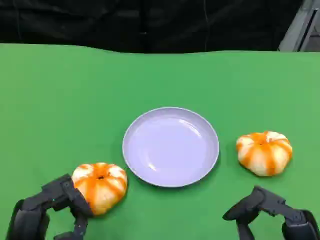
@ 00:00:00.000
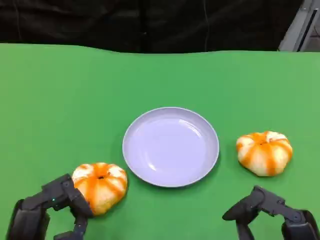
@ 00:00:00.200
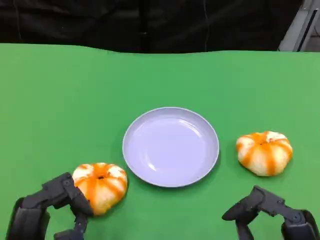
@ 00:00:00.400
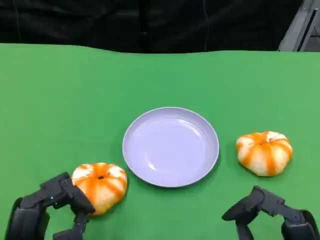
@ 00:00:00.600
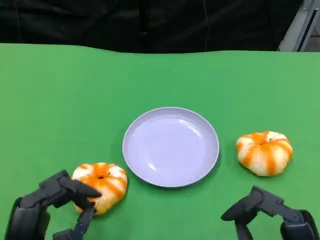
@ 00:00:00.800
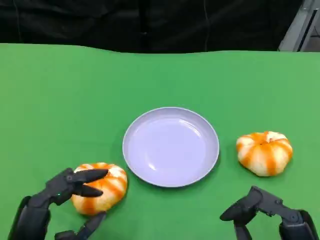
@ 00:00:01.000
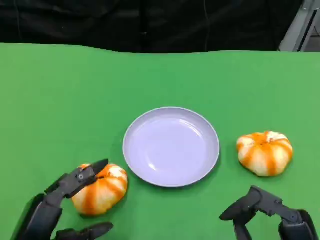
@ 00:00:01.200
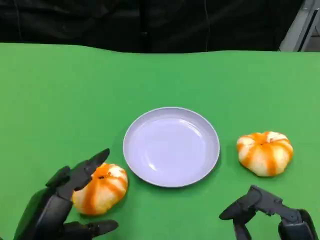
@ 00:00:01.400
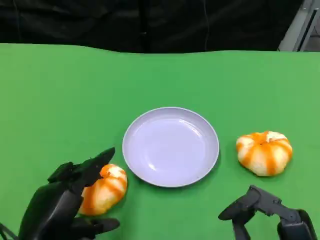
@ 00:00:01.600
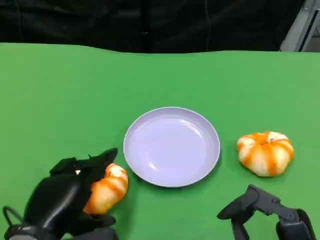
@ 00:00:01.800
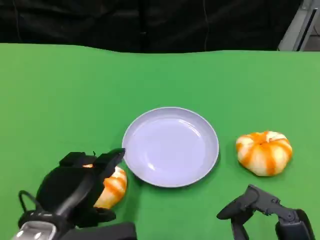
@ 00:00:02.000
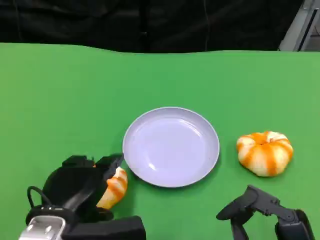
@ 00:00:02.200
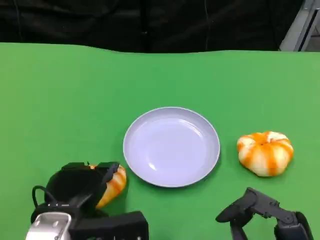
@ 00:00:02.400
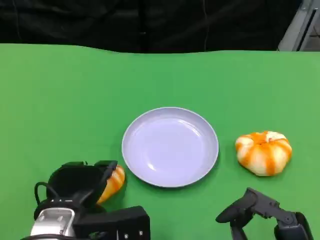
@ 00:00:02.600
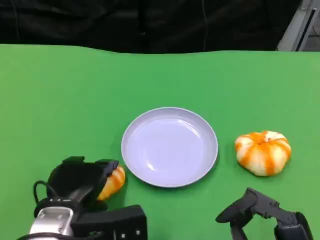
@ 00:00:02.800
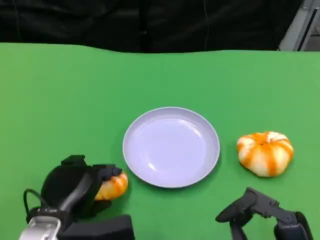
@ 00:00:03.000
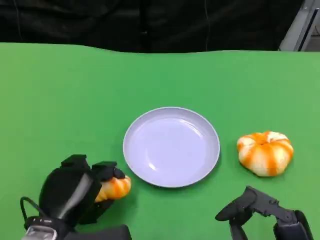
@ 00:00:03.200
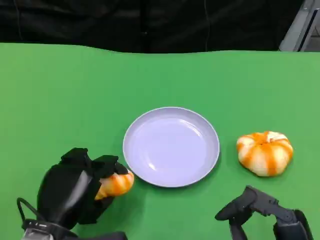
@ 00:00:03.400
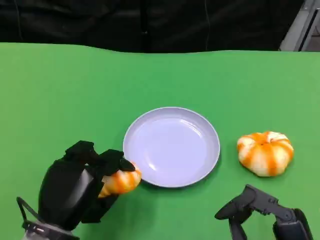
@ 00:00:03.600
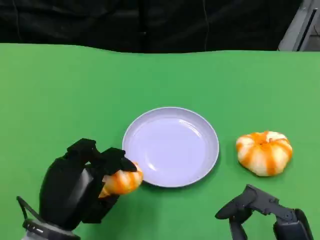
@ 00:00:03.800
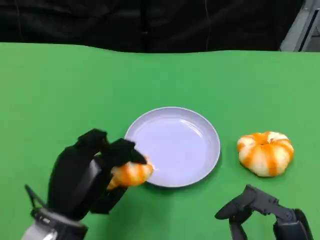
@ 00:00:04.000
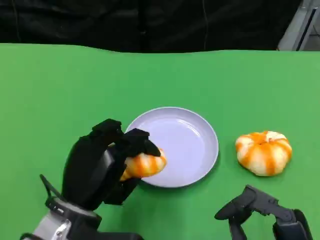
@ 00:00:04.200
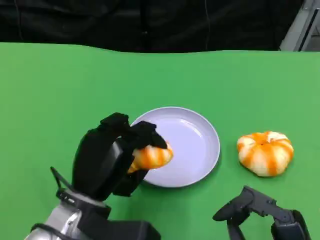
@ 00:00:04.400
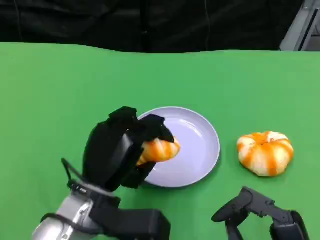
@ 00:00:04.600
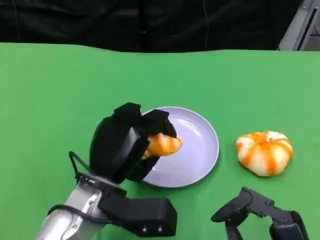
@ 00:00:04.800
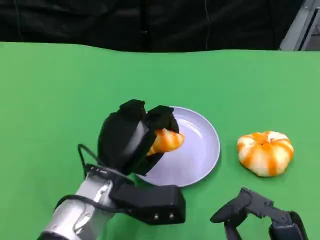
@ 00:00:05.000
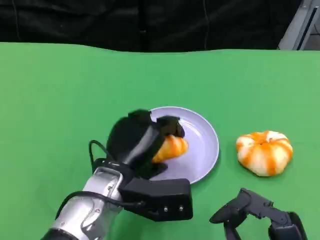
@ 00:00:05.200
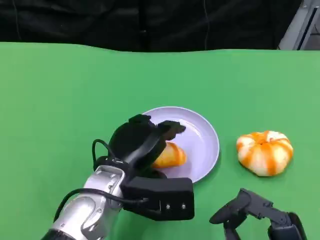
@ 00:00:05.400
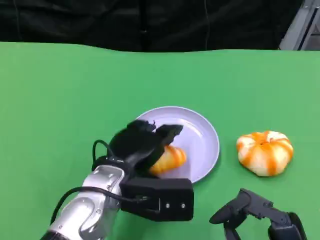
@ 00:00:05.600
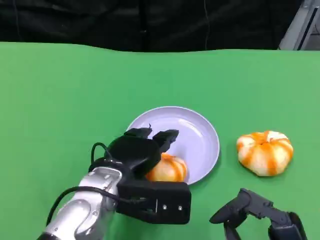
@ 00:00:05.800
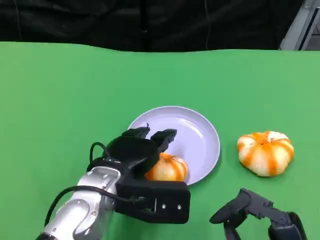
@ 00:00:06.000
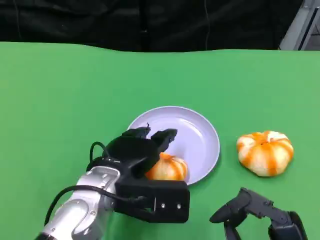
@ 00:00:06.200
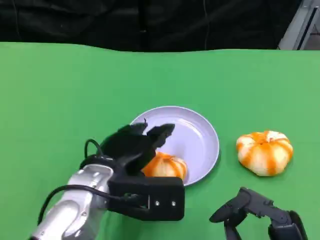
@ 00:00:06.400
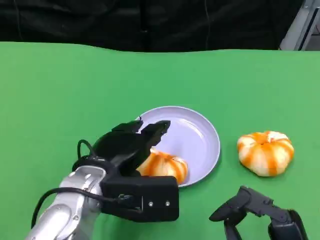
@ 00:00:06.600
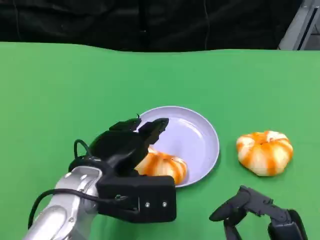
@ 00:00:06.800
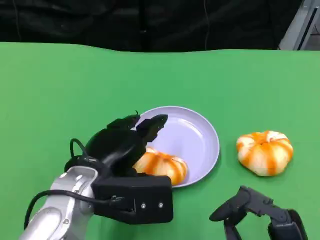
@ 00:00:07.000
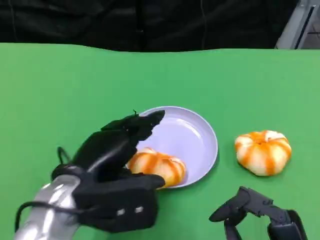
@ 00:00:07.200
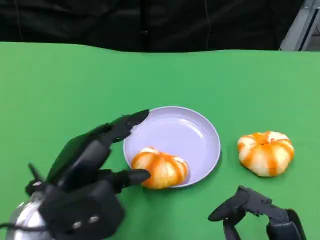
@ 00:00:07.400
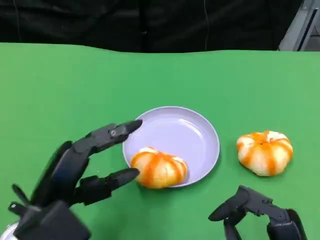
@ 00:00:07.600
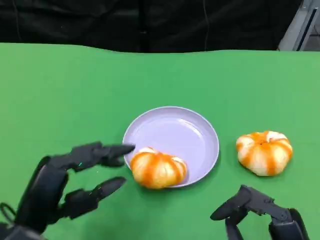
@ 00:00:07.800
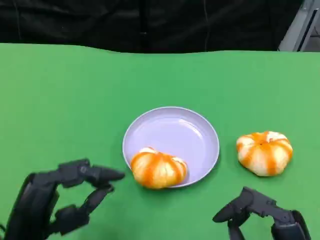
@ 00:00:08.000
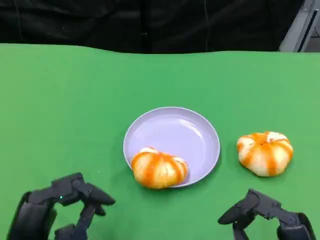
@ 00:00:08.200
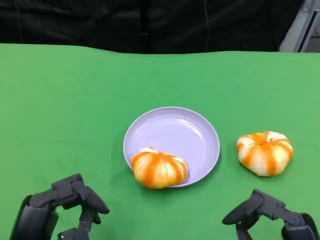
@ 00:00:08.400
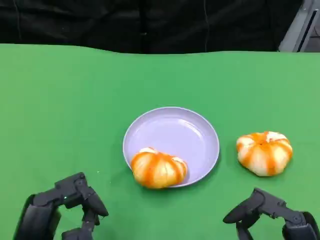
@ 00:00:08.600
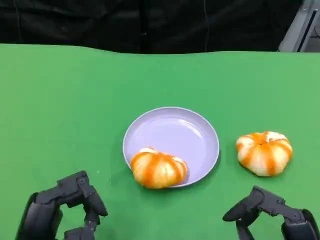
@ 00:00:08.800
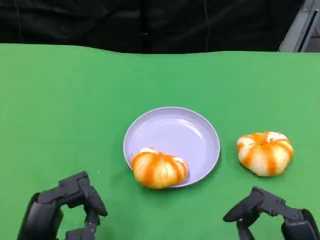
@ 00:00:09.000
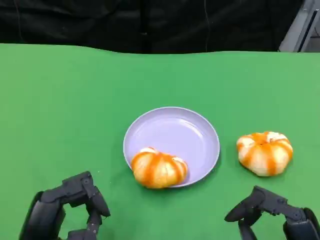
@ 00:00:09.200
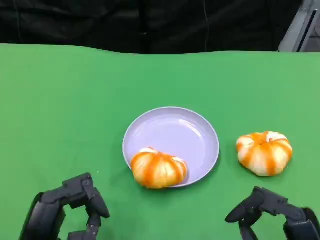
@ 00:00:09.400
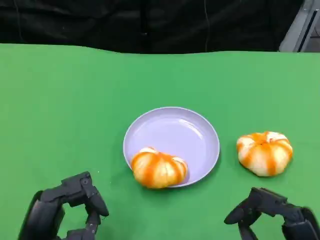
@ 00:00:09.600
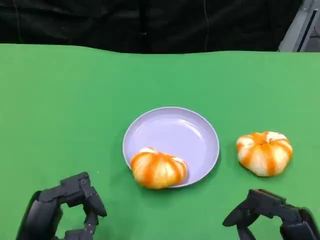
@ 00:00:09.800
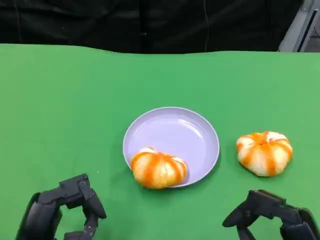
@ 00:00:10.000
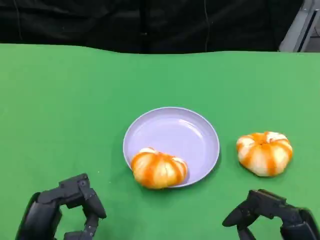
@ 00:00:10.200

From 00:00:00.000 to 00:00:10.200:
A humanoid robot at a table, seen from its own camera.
Task of the whole recording: Grasp the bread from the table and place it into the plate.
From 00:00:01.400 to 00:00:03.000: The left hand heads forward, covering approximately 5 cm.
From 00:00:03.000 to 00:00:04.400: The left hand shifts by about 5 cm.
From 00:00:05.800 to 00:00:07.200: The left hand goes about 5 cm to the left.
From 00:00:07.200 to 00:00:08.800: The left hand shifts approximately 10 cm backward, downward and to the left.
From 00:00:08.800 to 00:00:10.200: There are only small adjustments of the hands.

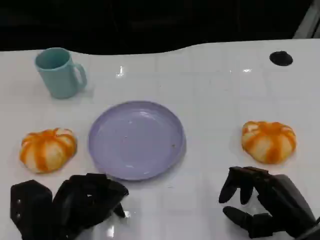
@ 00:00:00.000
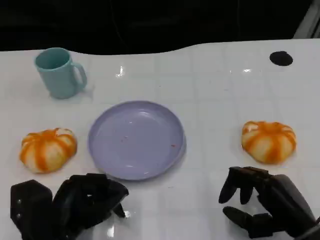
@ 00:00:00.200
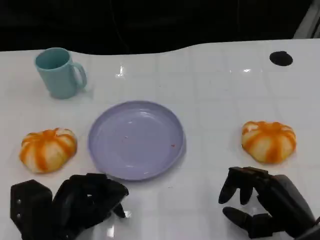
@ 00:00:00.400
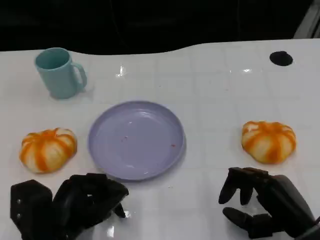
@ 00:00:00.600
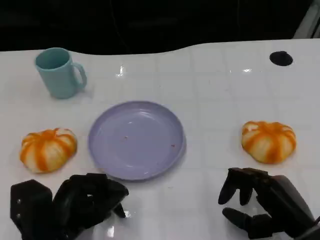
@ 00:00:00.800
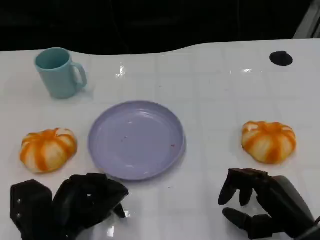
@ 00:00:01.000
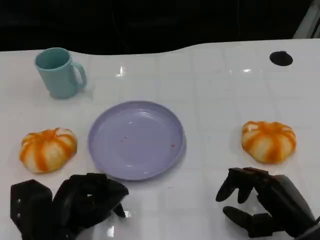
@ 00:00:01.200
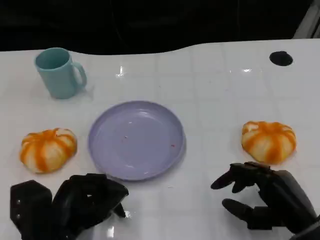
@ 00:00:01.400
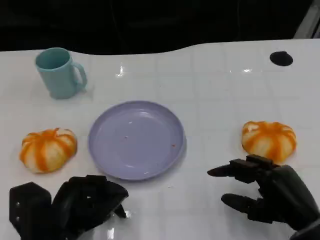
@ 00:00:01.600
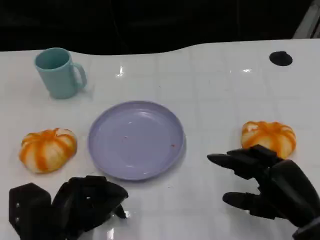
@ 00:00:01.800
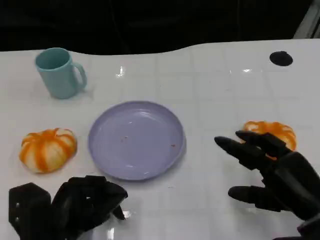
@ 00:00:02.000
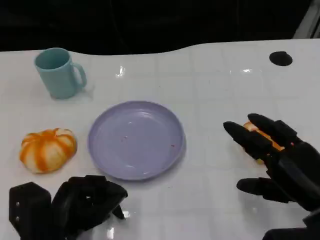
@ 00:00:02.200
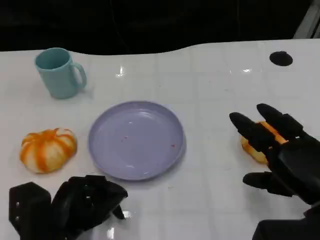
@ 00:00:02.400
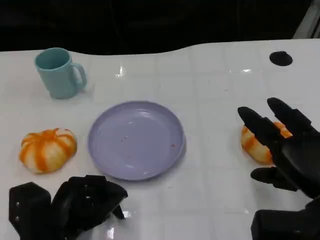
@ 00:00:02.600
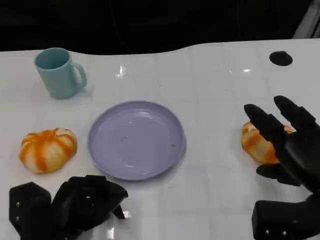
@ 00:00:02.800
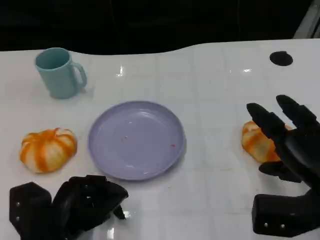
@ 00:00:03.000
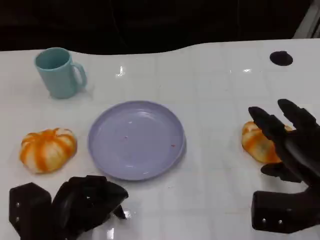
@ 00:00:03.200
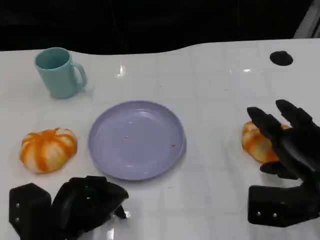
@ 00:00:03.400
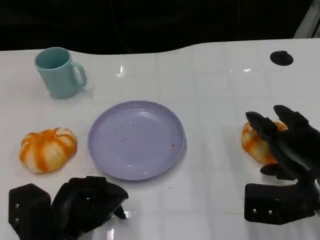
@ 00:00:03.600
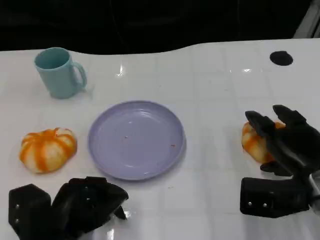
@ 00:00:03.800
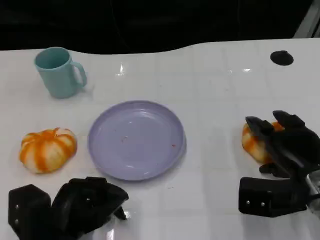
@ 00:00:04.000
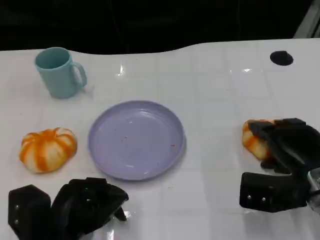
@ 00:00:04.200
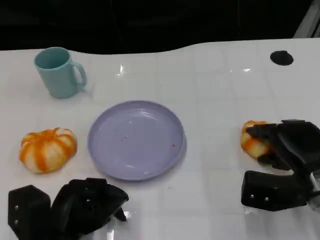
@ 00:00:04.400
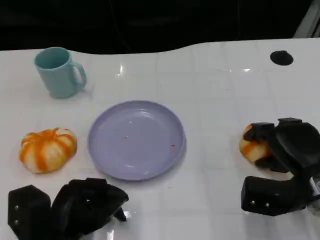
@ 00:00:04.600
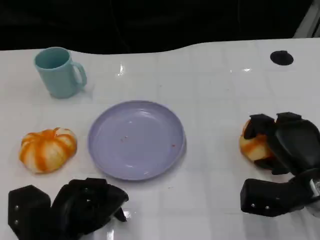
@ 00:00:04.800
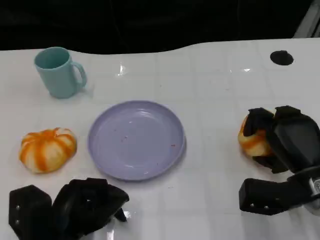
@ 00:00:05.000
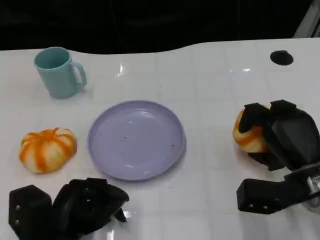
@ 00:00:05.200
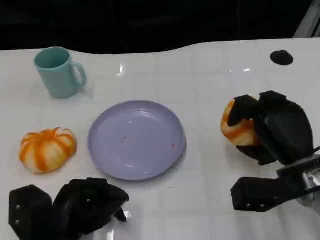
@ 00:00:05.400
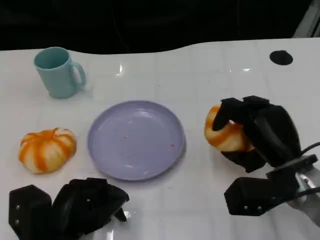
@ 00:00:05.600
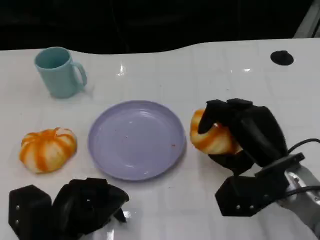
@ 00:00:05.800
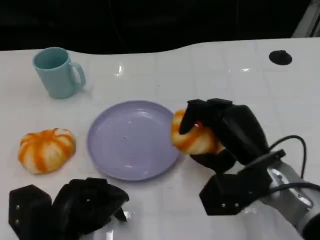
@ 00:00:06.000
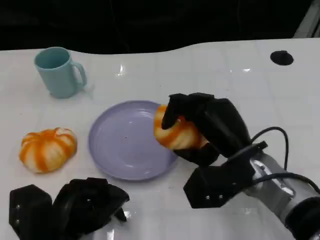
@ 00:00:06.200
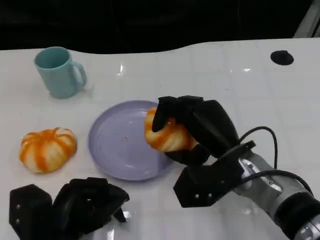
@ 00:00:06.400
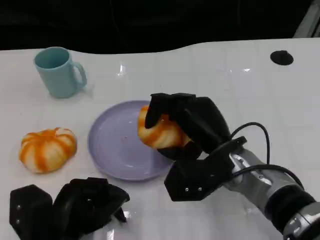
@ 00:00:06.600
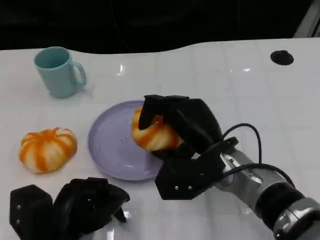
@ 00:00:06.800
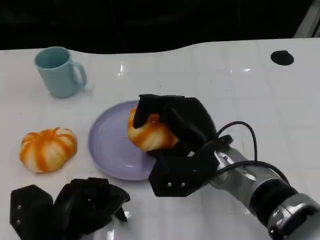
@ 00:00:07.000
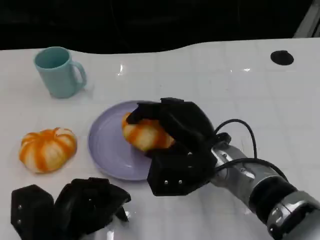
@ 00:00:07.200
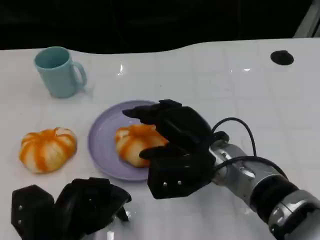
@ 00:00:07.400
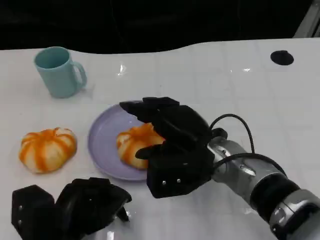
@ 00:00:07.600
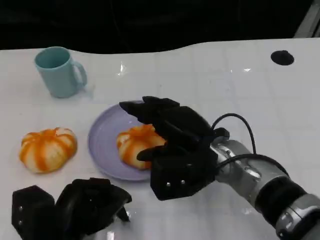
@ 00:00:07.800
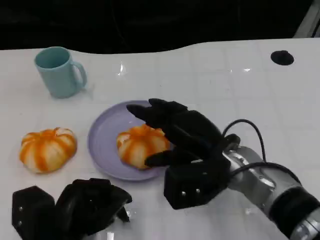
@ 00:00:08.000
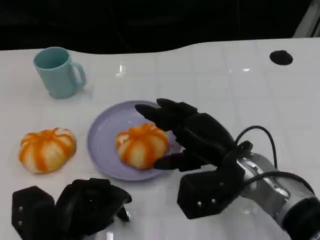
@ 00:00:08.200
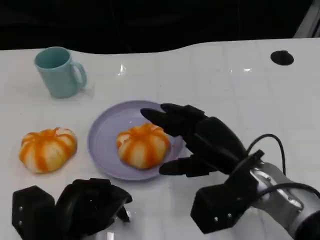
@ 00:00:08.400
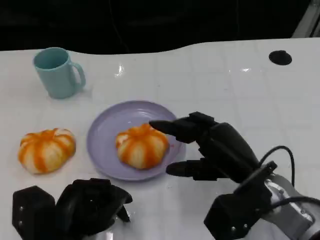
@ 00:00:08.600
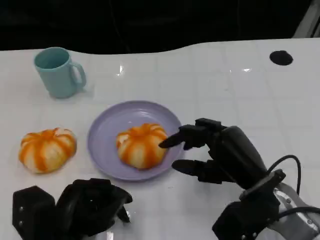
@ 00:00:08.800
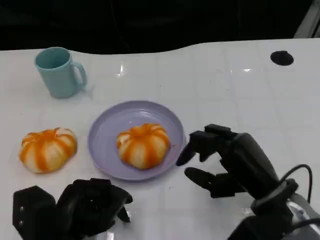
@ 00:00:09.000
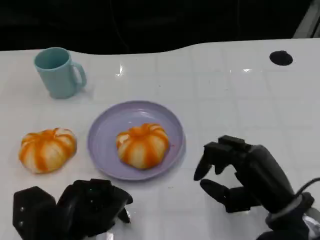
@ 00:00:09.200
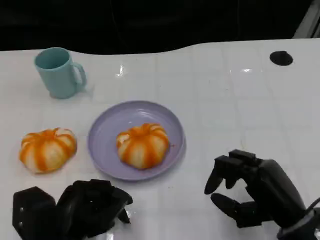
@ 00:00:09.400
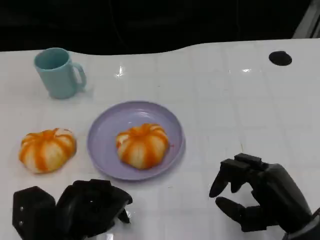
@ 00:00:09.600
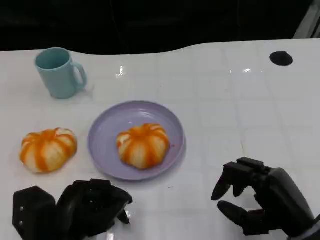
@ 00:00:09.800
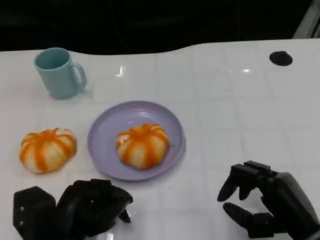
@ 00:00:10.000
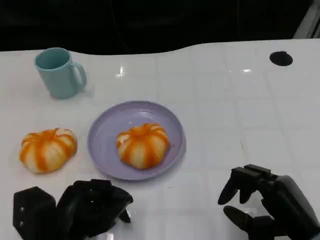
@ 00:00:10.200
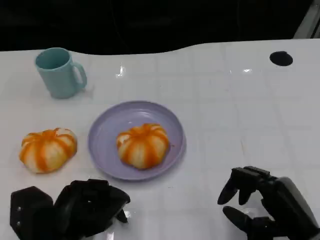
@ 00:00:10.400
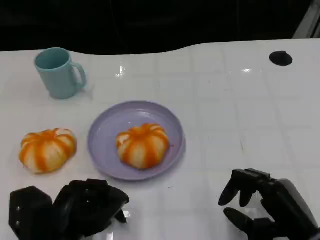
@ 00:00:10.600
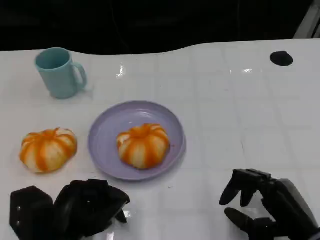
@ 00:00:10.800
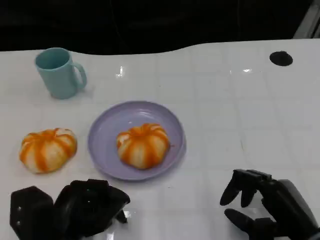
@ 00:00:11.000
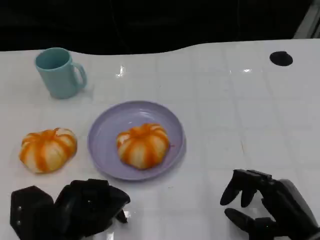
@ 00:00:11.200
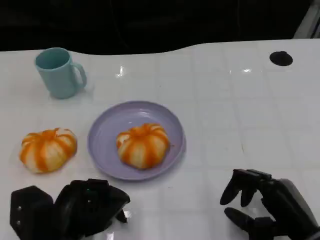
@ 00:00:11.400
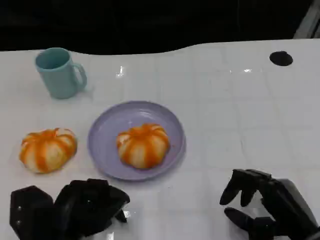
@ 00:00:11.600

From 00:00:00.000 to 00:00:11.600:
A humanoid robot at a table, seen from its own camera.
Task of the whole recording: Grasp the bread from the table and place it into the plate.
From 00:00:00.000 to 00:00:01.400: Both hands stay about where they are.
From 00:00:01.400 to 00:00:02.800: The right hand is displaced upward by about 5 cm.
From 00:00:02.800 to 00:00:04.400: The right hand shifts some 5 cm forward.
From 00:00:04.400 to 00:00:05.800: The right hand moves to the left, about 5 cm.
From 00:00:05.800 to 00:00:07.200: The right hand goes about 10 cm to the left.
From 00:00:07.200 to 00:00:08.800: The right hand heads to the right, covering roughly 10 cm.
From 00:00:08.800 to 00:00:10.200: The right hand travels to the right and backward by some 10 cm.
From 00:00:10.200 to 00:00:11.600: The hands move only a little.
